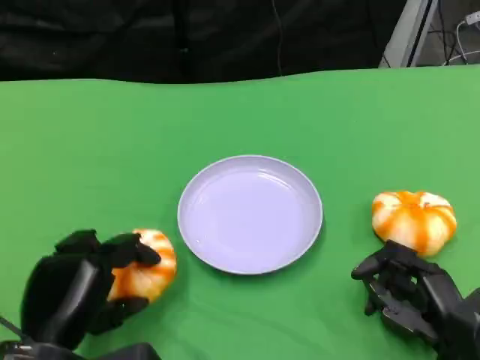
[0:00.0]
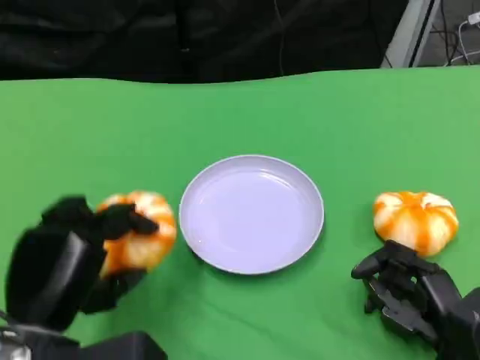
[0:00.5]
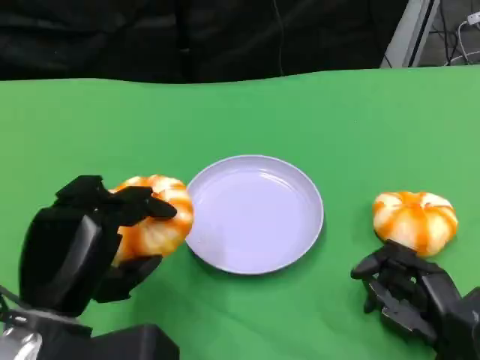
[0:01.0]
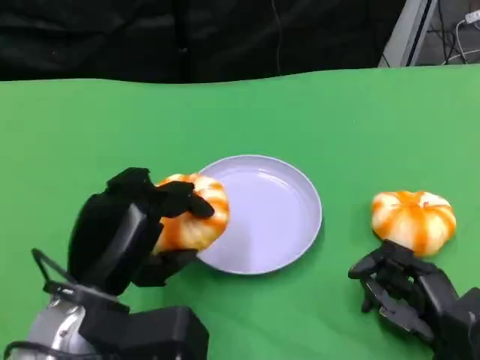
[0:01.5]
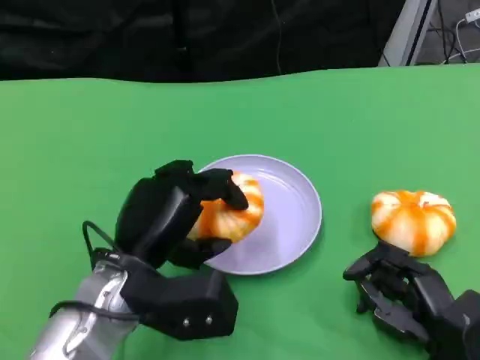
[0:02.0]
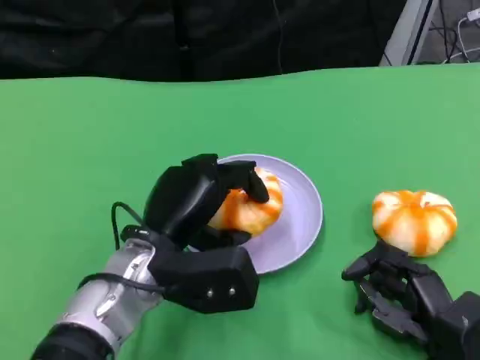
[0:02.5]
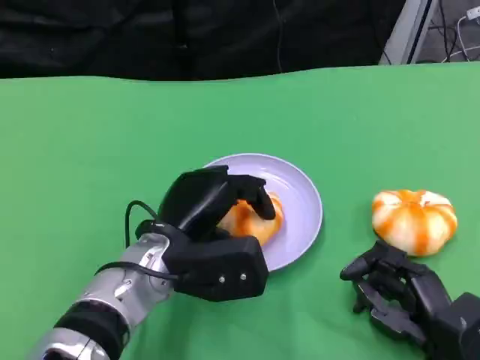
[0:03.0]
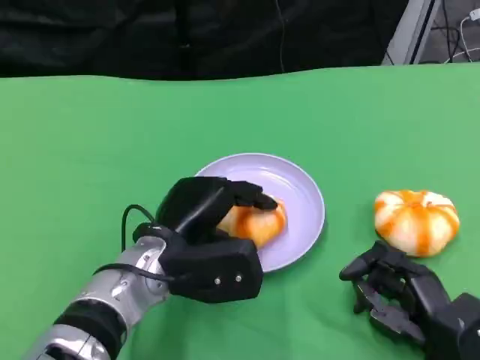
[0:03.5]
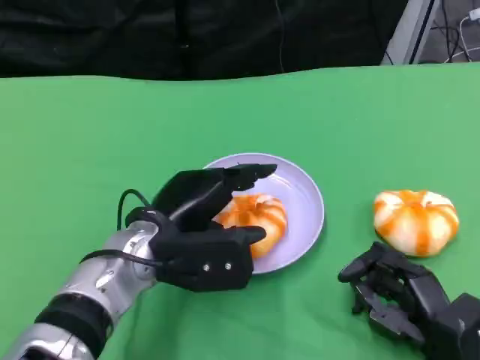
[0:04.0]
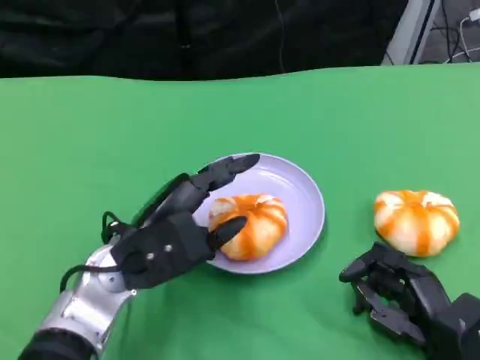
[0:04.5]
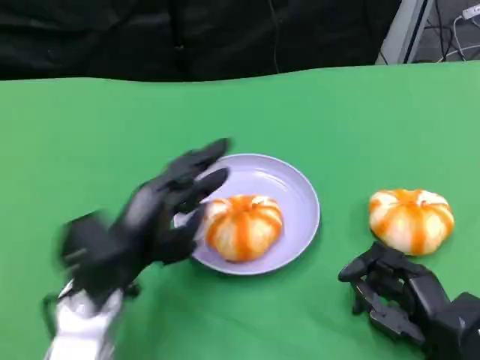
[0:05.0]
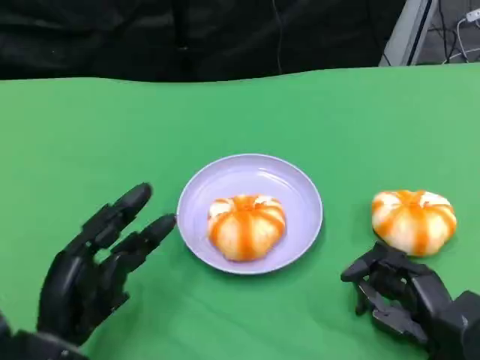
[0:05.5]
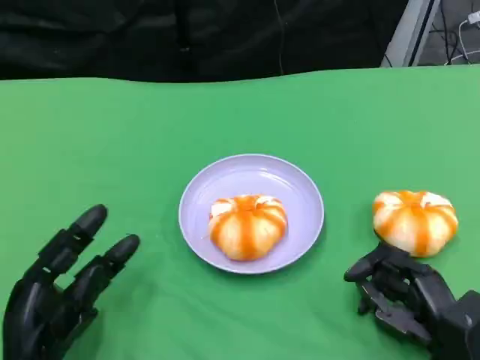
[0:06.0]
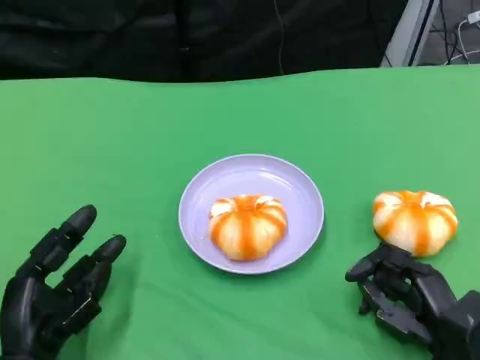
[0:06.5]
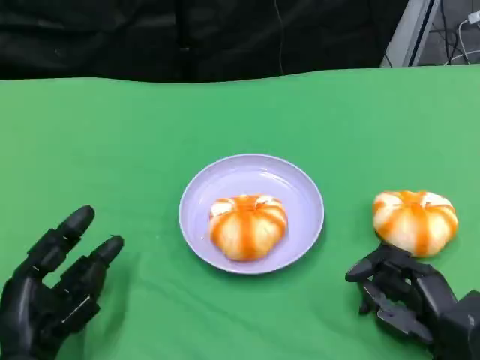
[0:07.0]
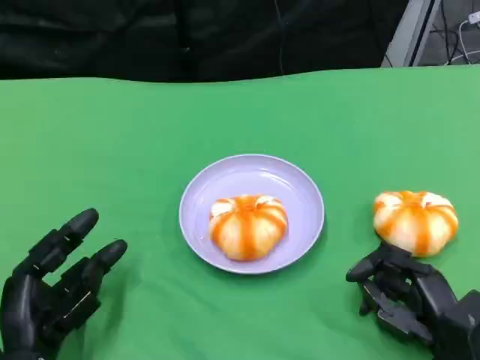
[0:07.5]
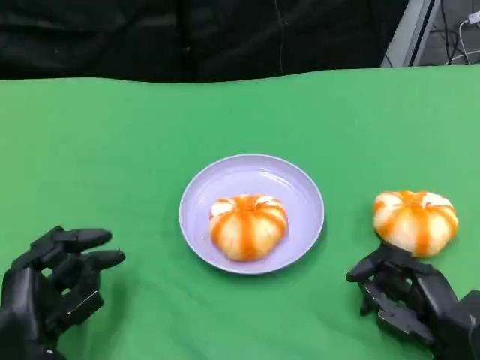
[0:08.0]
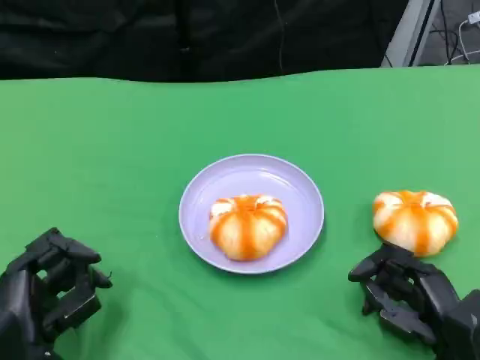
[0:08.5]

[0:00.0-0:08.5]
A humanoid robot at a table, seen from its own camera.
Task of the whole recording: Grasp the bread from the table and place it into the plate.
0:00.0 to 0:02.0: The left hand shifts roughly 10 cm forward and to the right.
0:04.0 to 0:06.5: The left hand heads to the left, backward and downward, covering some 20 cm.
0:06.5 to 0:08.5: The hands stay close to where they were, moving slightly.

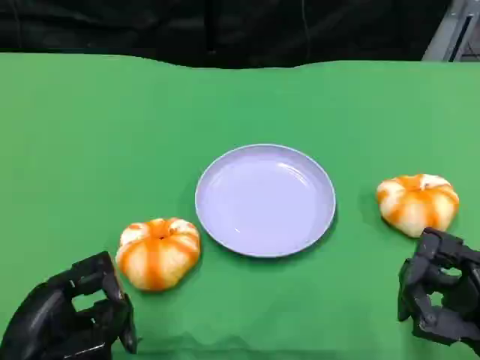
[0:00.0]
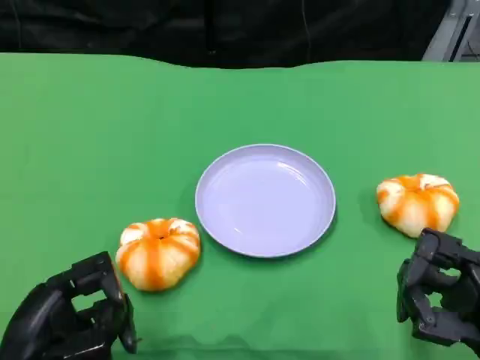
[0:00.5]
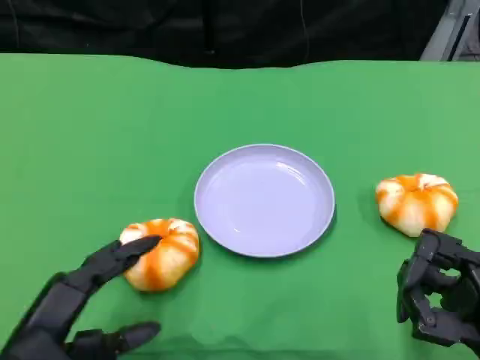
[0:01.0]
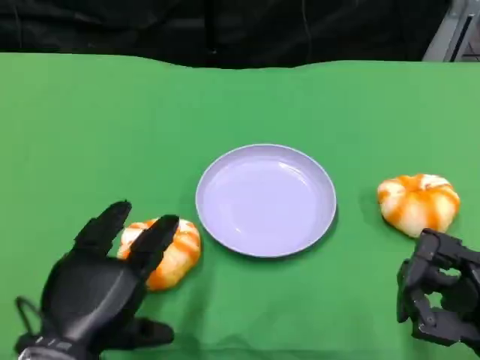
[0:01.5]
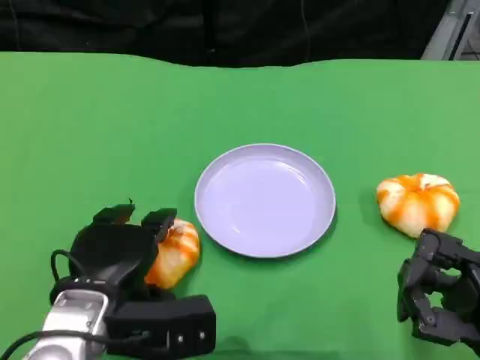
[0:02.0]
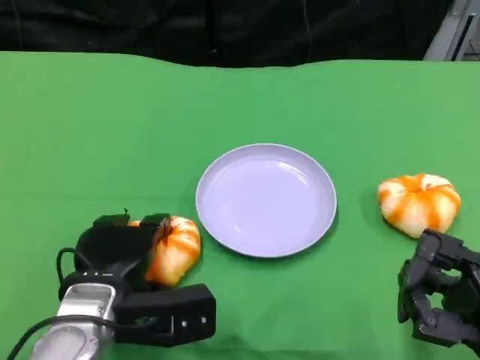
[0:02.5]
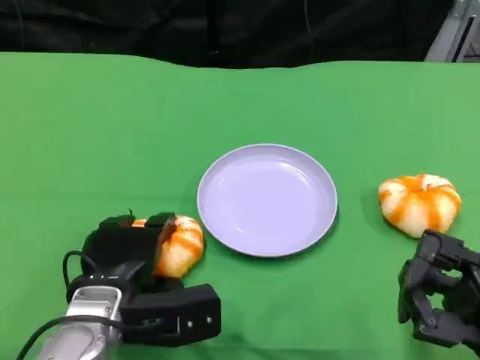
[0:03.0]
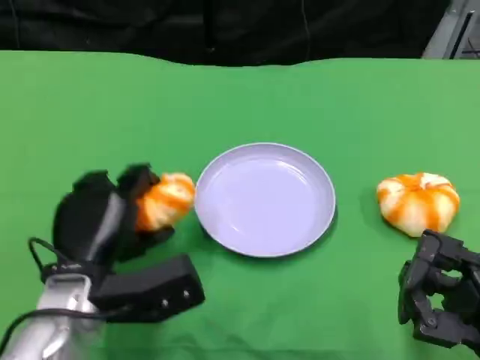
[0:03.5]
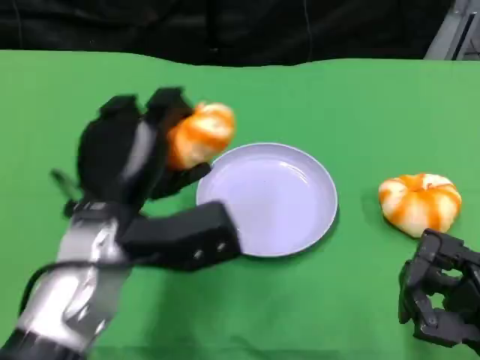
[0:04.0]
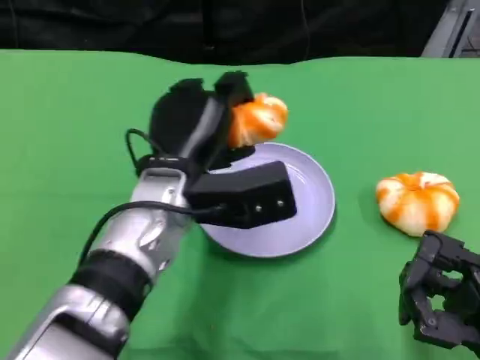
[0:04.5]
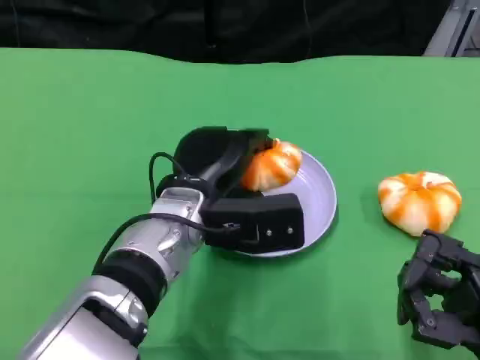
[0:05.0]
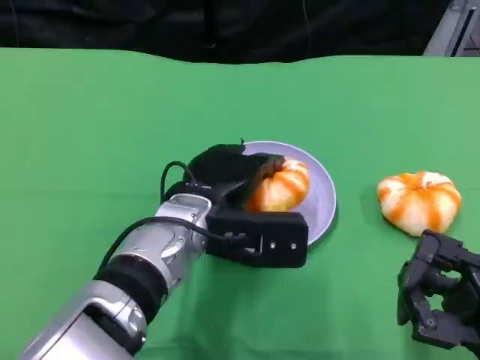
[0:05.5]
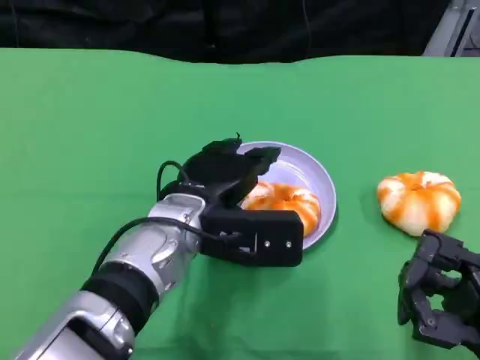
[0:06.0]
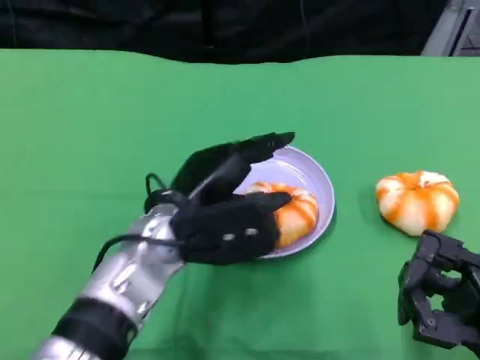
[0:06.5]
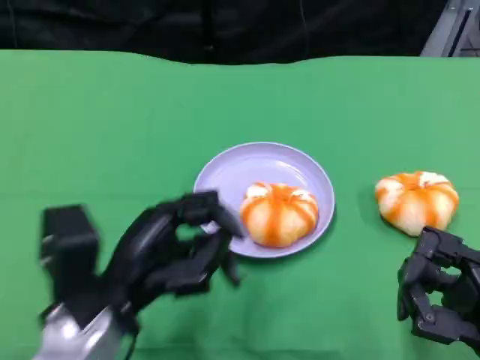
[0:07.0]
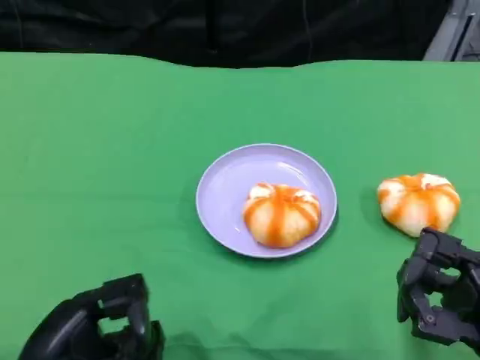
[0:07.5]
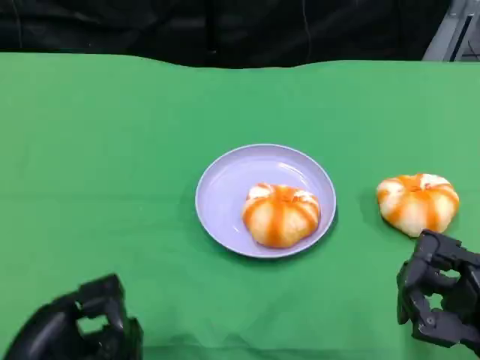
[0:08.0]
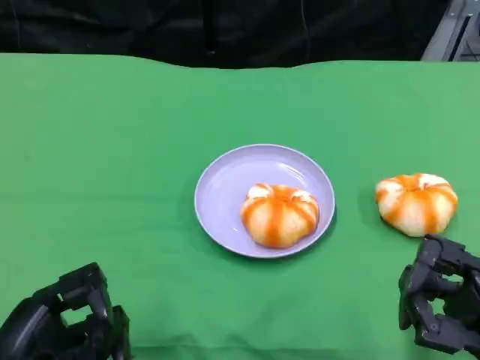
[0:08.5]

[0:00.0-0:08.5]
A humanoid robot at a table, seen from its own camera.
Task of the whole recording: Grasp the bread from the table and place it into the plate.
0:00.0 to 0:02.0: The left hand is displaced to the right and forward by about 10 cm.
0:02.0 to 0:04.0: The left hand heads upward, covering approximately 5 cm.
0:06.5 to 0:08.5: The left hand is displaced to the left and backward by approximately 20 cm.

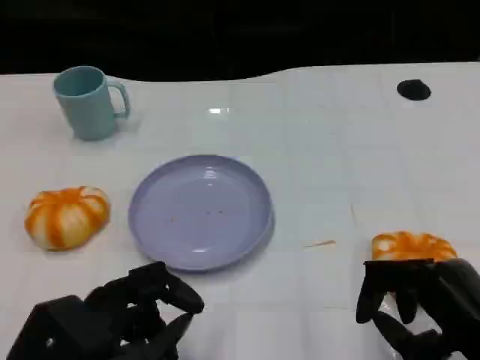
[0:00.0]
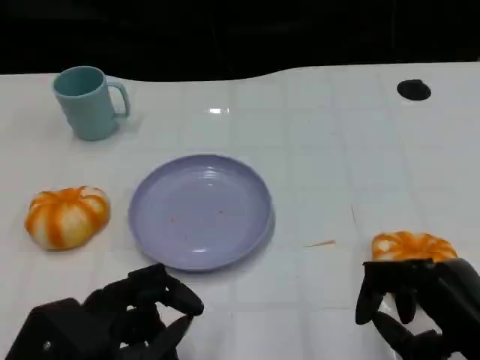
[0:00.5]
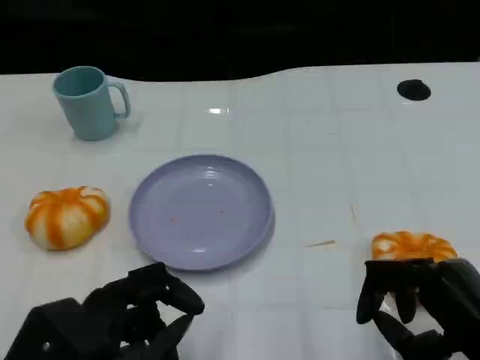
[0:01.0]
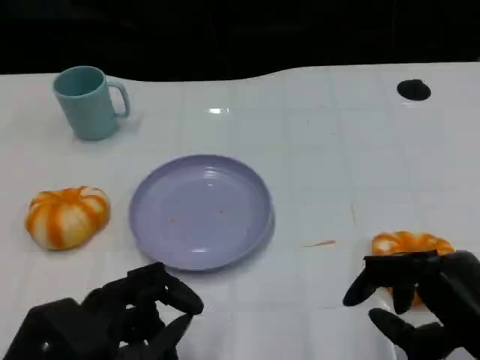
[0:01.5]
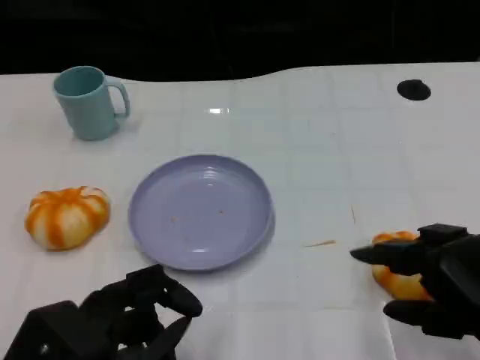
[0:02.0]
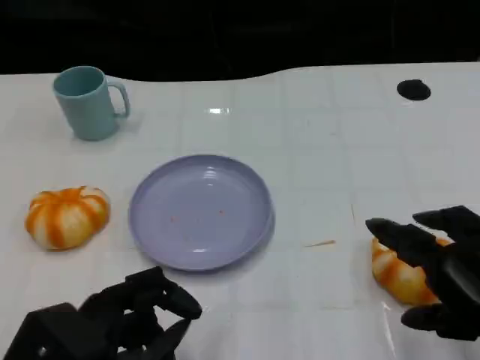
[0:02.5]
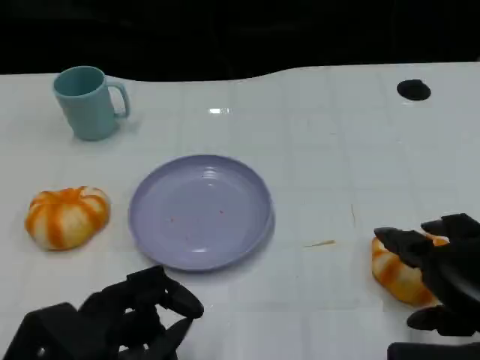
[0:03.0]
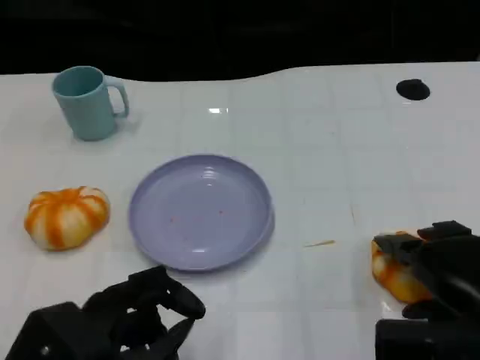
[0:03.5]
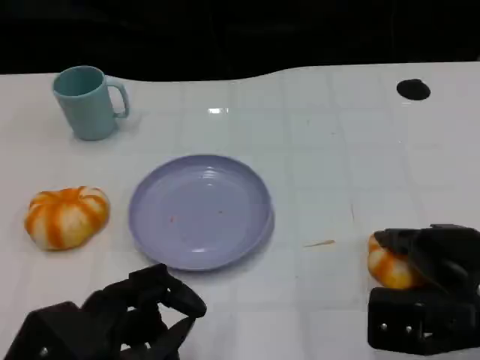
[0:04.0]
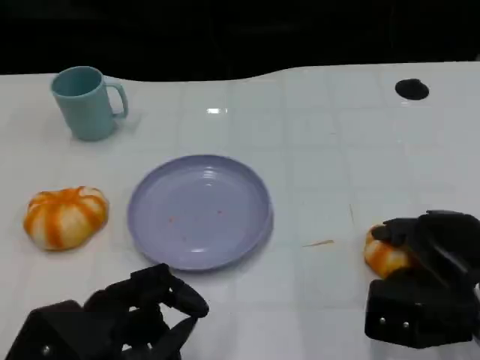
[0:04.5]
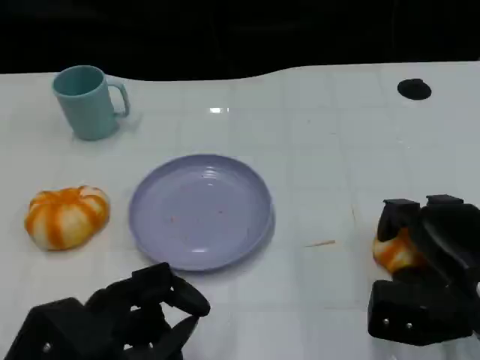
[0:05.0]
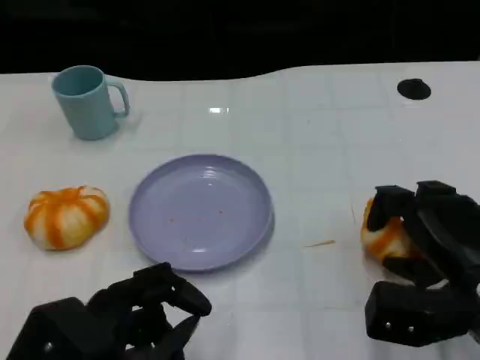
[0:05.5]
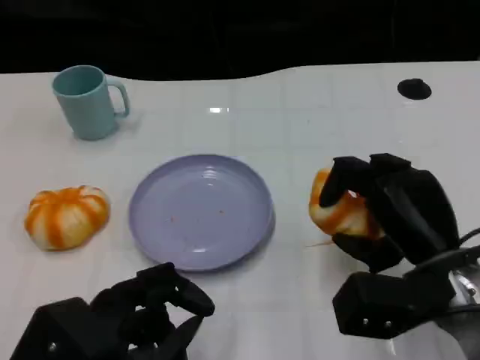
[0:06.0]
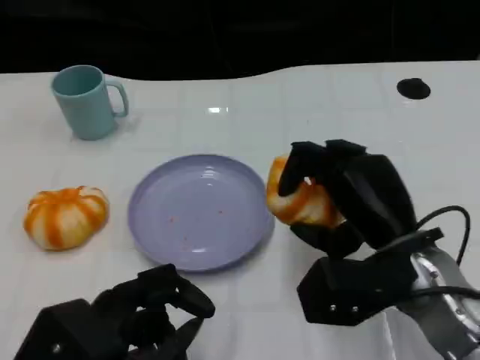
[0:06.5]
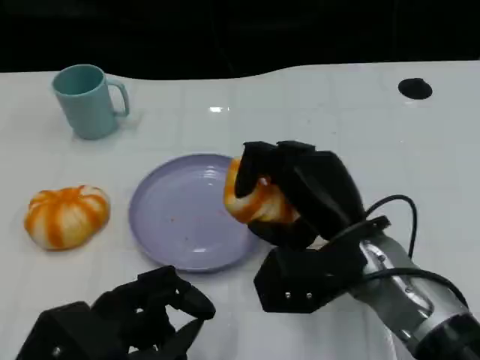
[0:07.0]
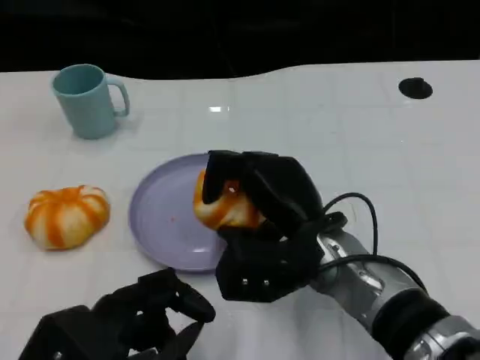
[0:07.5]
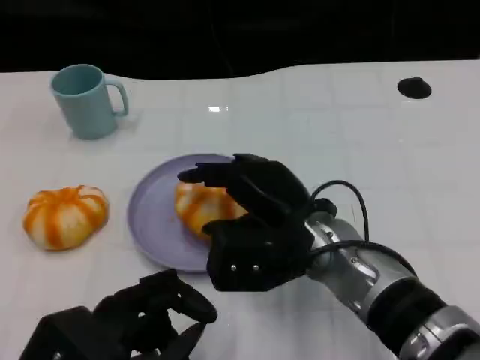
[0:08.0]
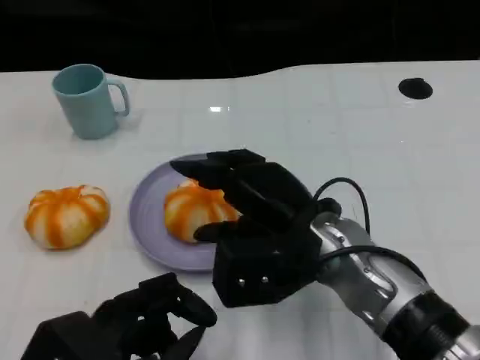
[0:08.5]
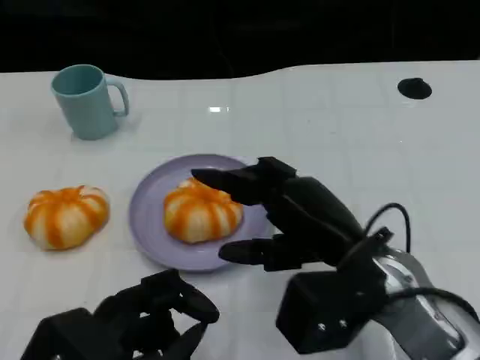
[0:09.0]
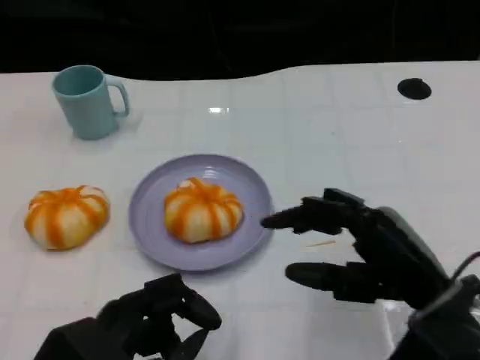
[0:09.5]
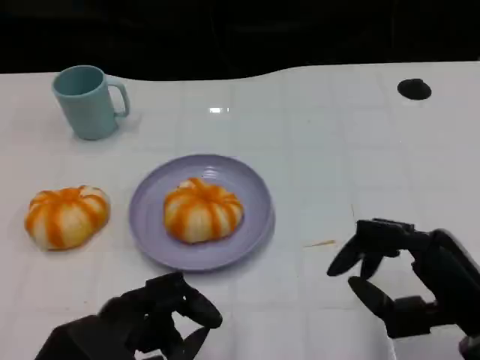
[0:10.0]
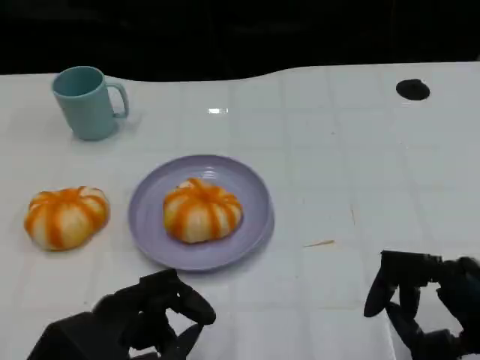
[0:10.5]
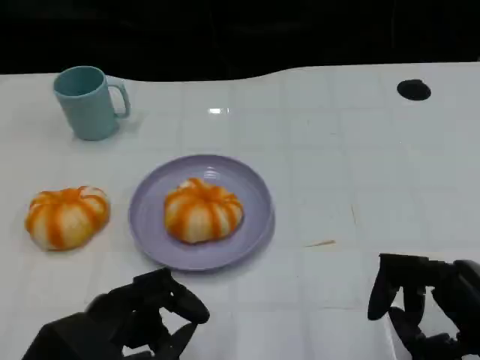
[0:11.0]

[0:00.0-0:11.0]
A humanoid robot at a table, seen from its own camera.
Task of the whole recording: Grasp the bread from the table and place it into the plate.
0:02.0 to 0:03.5: The right hand changes place by about 5 cm.
0:05.5 to 0:07.5: The right hand shifts some 15 cm to the left.
0:07.5 to 0:09.0: The right hand moves to the right, approximately 5 cm.
0:09.0 to 0:11.0: The right hand shifts approximately 15 cm to the right and backward.
